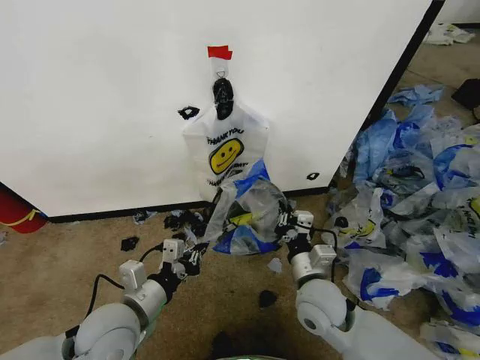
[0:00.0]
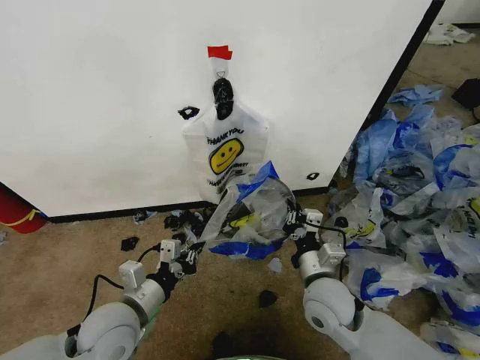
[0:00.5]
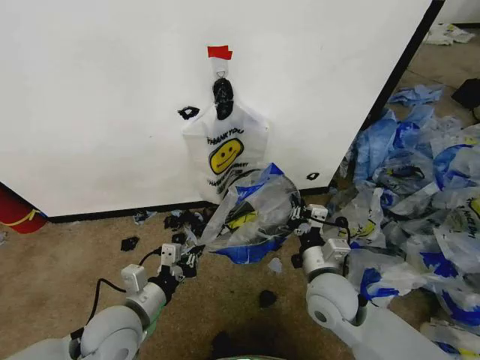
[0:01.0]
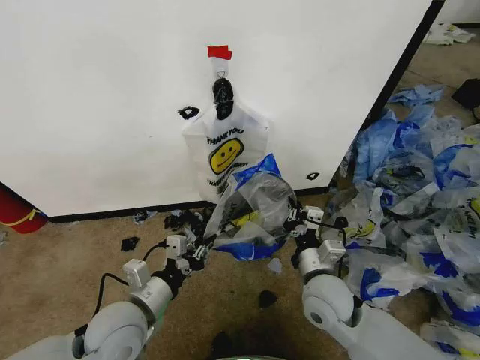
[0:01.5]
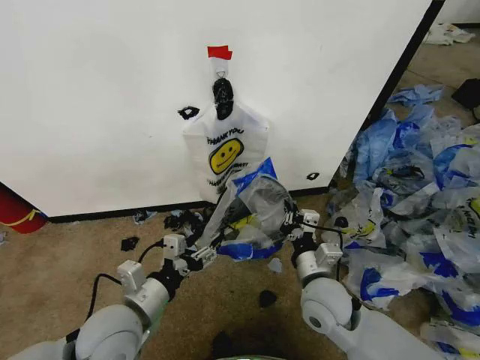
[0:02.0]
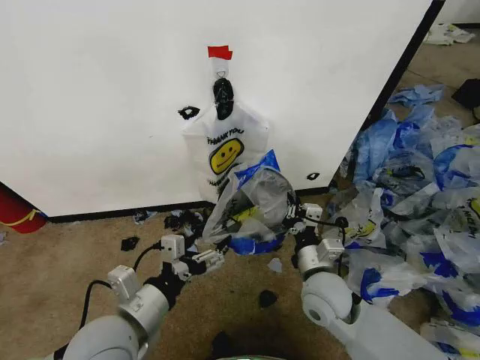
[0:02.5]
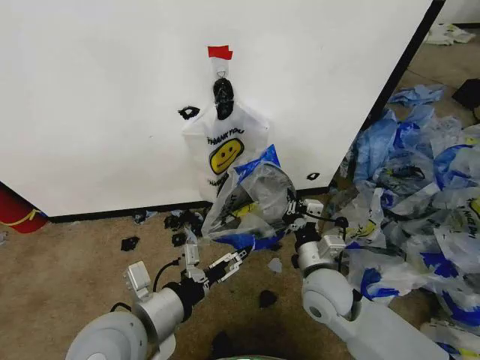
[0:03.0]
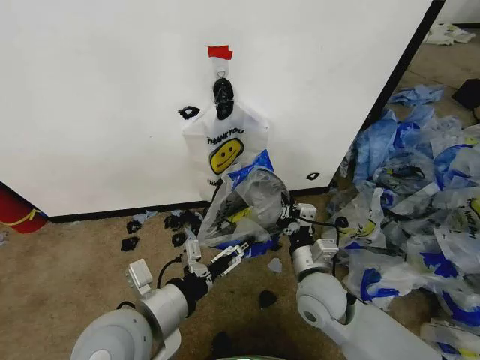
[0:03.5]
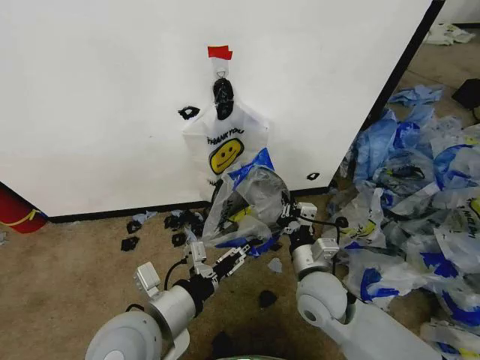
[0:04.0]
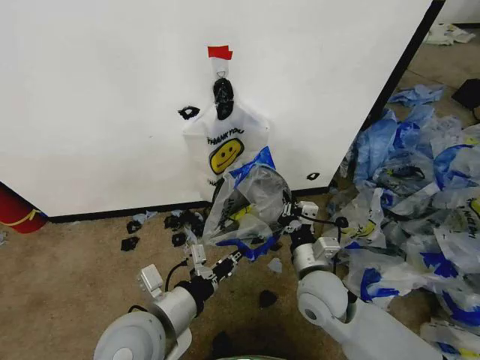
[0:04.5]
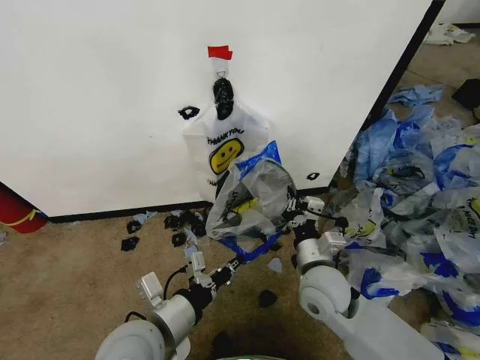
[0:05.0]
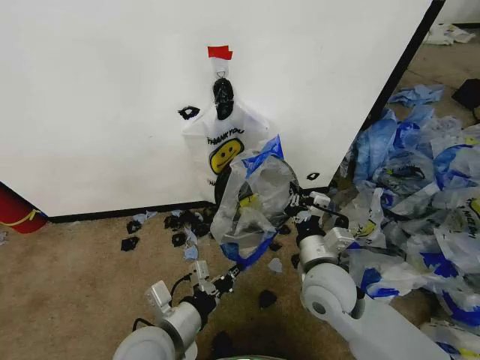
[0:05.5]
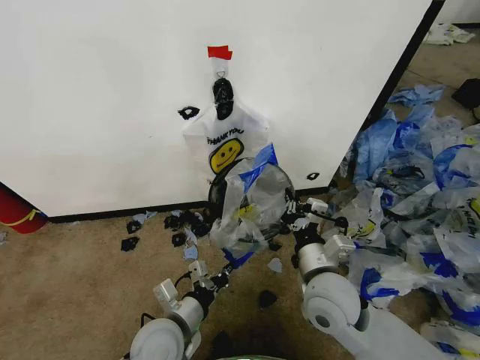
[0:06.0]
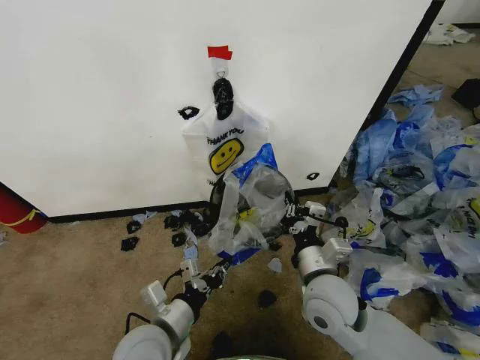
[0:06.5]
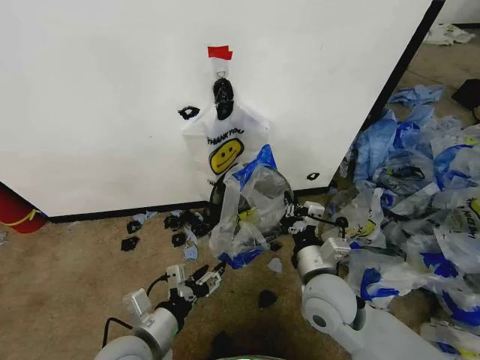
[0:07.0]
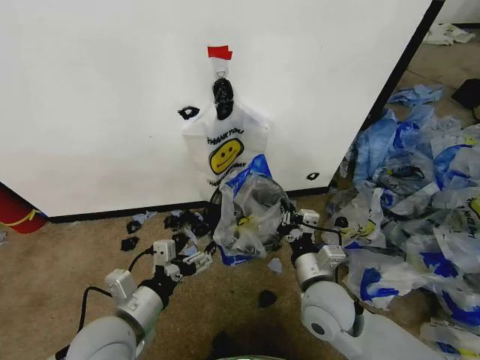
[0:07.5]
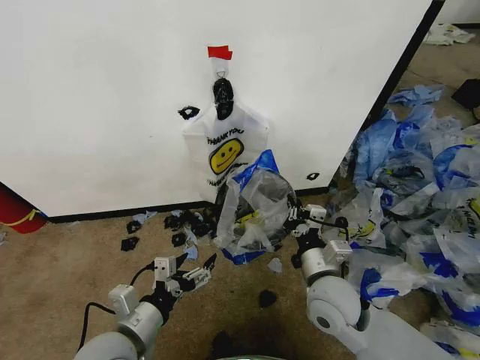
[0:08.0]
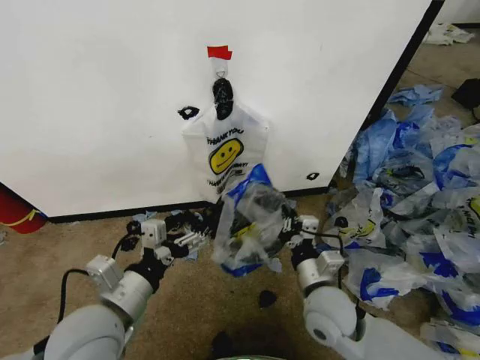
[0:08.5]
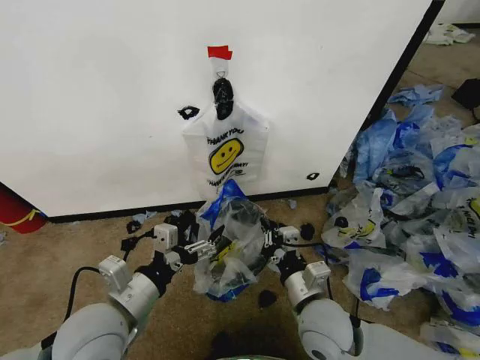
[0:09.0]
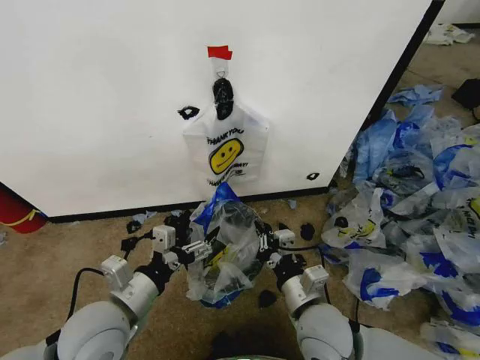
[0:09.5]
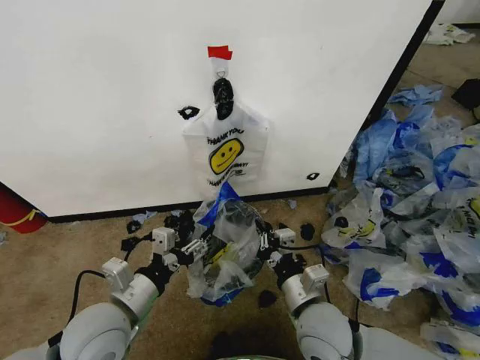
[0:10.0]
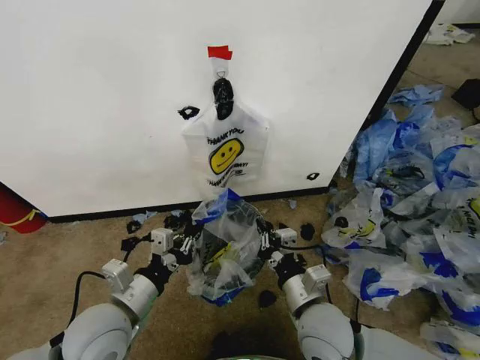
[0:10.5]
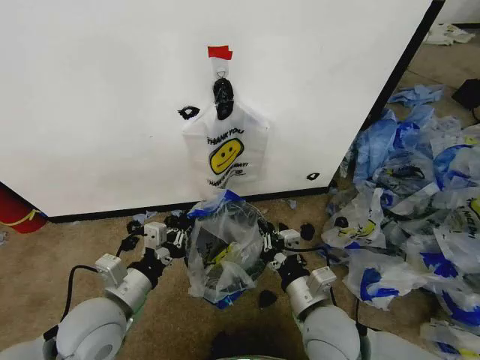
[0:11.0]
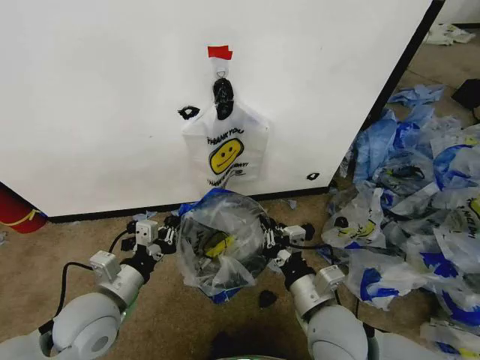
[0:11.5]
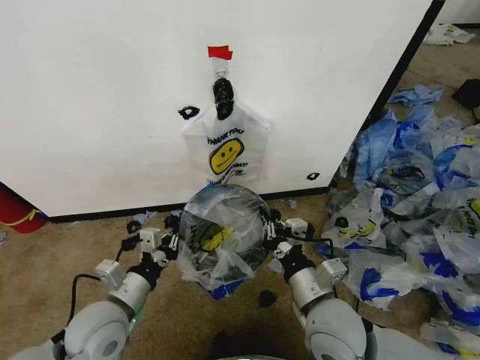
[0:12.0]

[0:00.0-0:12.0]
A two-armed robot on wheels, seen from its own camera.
Task of the whole recording: Pick up the garbage bag from the wall and place it over the trash bin.
0:00.0 to 0:02.0: The left gripper opens up.
0:02.0 to 0:04.0: The left gripper shifts some 5 cm to the right and upward.
0:04.0 to 0:06.0: The left gripper moves downward, some 10 cm, and closes its fingers.
0:06.0 to 0:08.0: The left gripper shifts approximately 5 cm to the left, and opens up.
0:08.0 to 0:10.0: The right gripper shifts by roughly 5 cm. The left gripper shifts by about 5 cm.
0:10.0 to 0:12.0: The left gripper closes up.

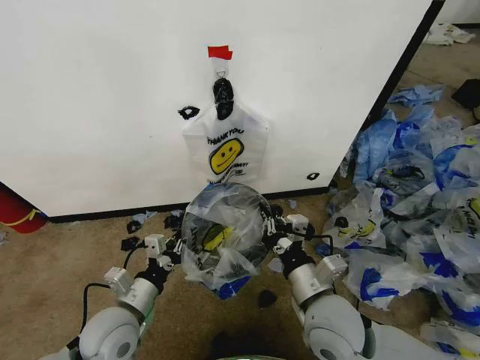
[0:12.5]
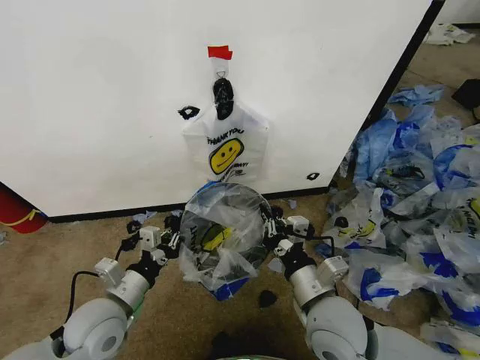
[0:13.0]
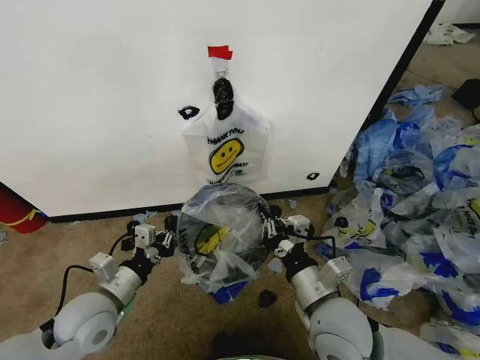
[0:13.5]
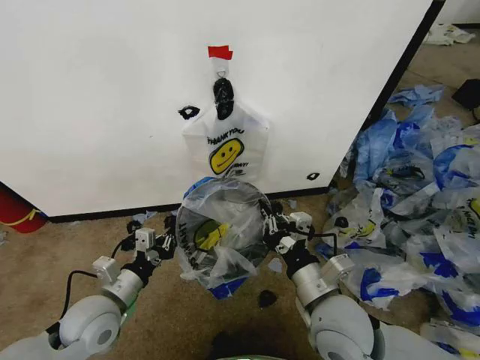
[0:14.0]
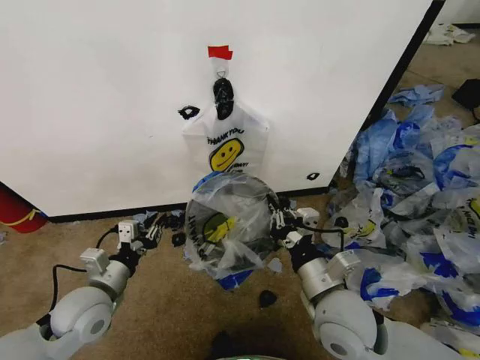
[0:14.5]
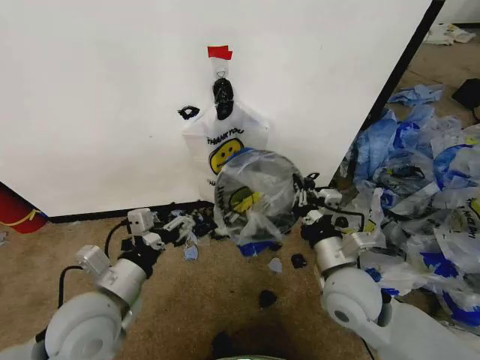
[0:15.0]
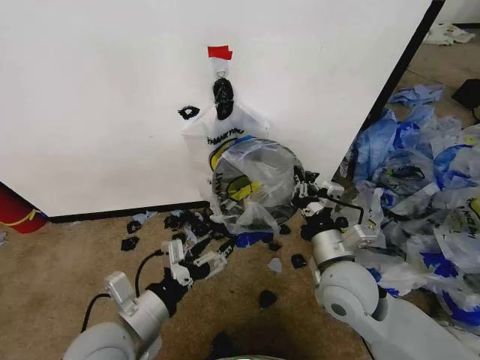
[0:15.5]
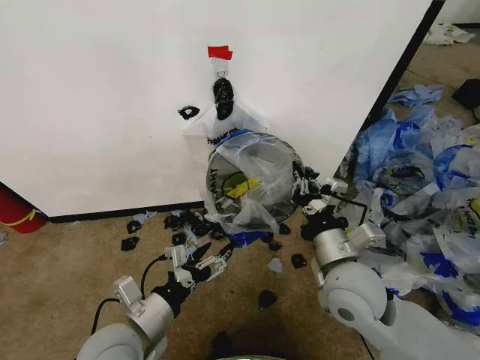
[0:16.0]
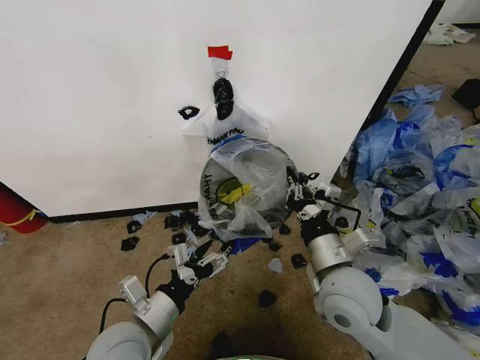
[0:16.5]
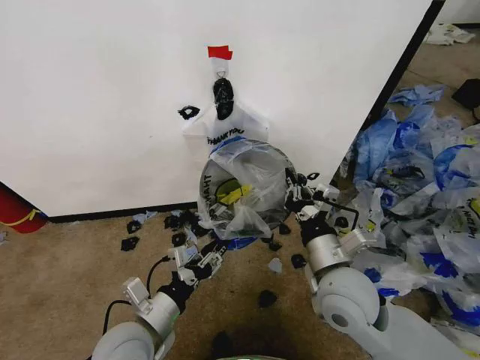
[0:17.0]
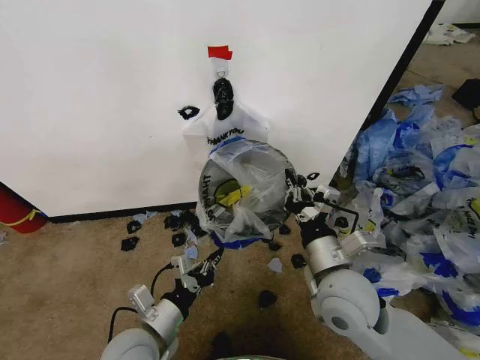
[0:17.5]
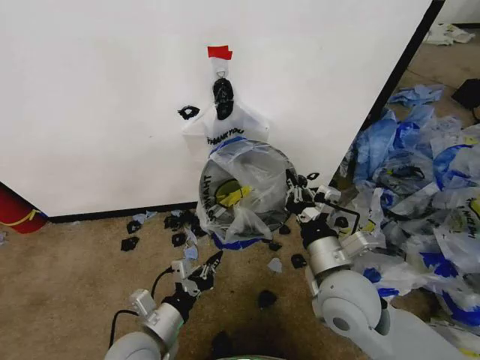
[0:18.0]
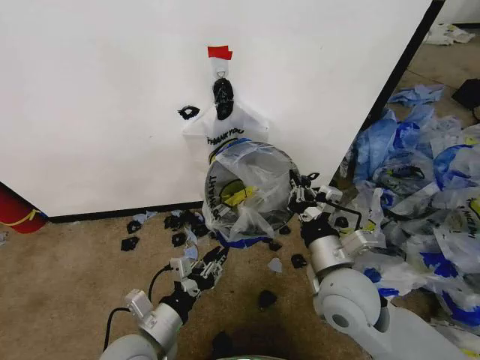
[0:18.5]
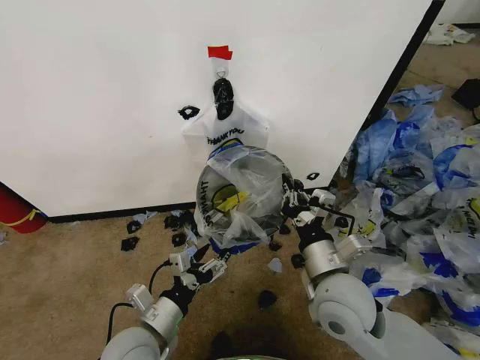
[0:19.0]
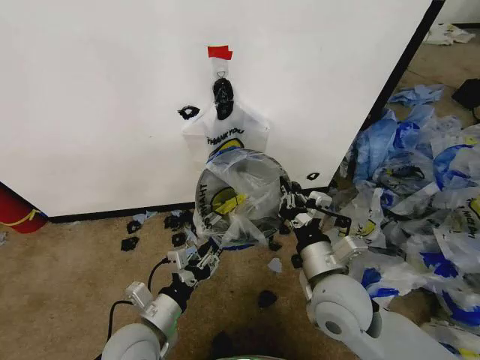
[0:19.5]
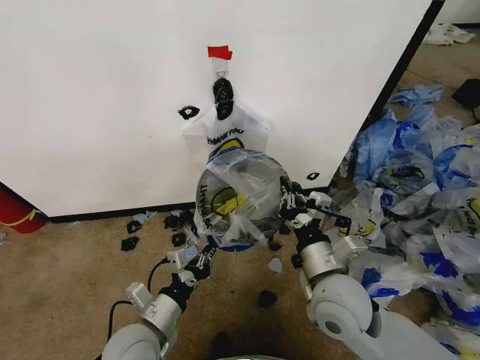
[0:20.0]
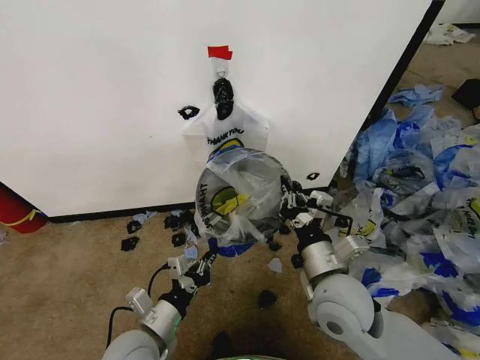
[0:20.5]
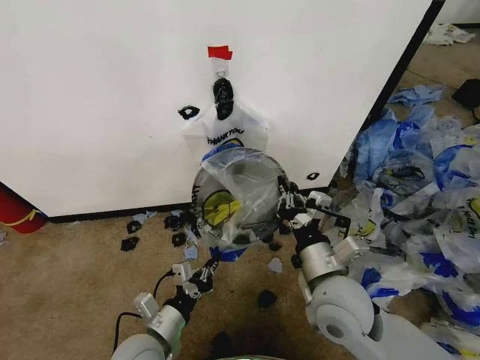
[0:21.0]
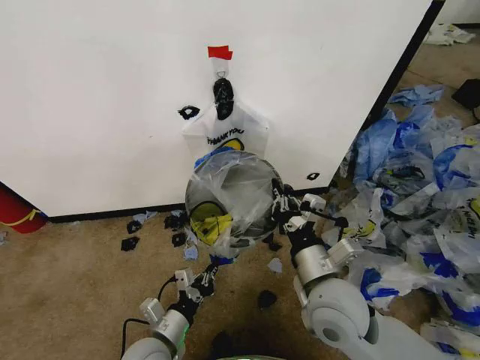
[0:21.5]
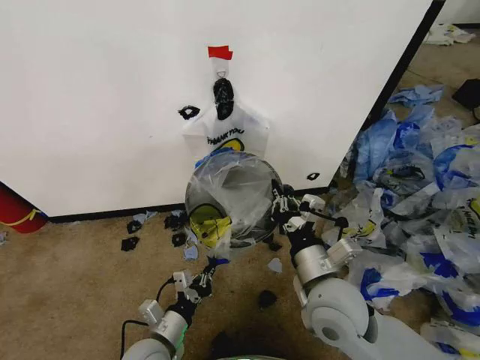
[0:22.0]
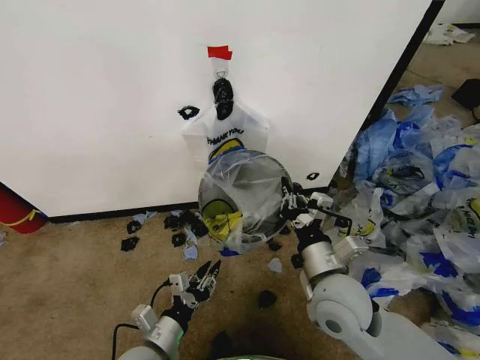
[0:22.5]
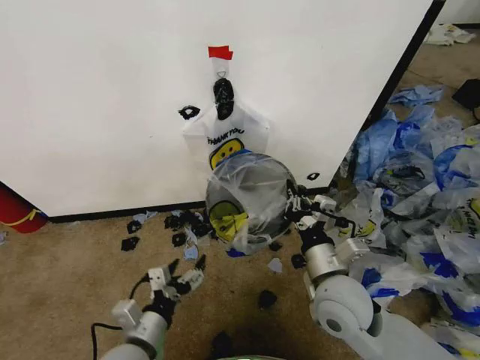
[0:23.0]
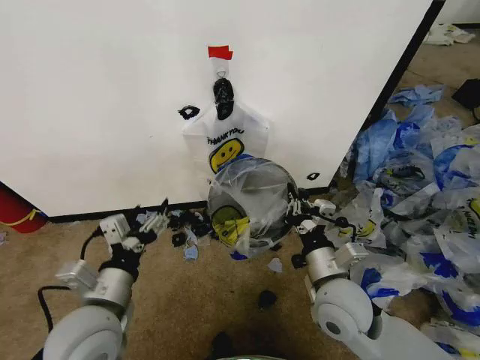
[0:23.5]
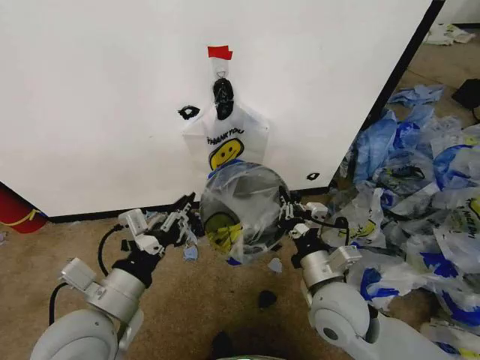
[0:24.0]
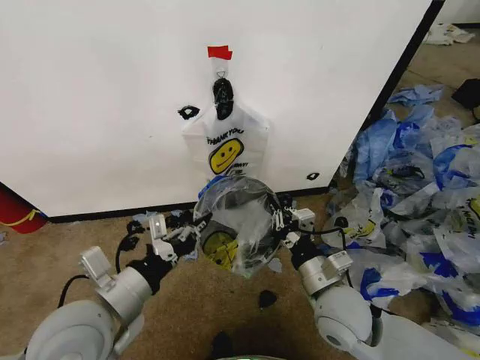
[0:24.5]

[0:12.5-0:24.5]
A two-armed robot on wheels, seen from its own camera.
Task of the whole recording: Pick up the garbage bag from the wall and place it over the trash bin.
0:12.5 to 0:14.5: The left gripper is displaced to the left by roughly 5 cm.
0:14.5 to 0:16.5: The left gripper moves to the right and backward, about 10 cm, and opens.
0:16.5 to 0:18.5: The left gripper closes up.
0:18.5 to 0:20.5: The left gripper closes its fingers.
0:20.5 to 0:22.5: The left gripper opens its fingers.
0:22.5 to 0:24.5: The left gripper moves upward, some 20 cm, and closes.

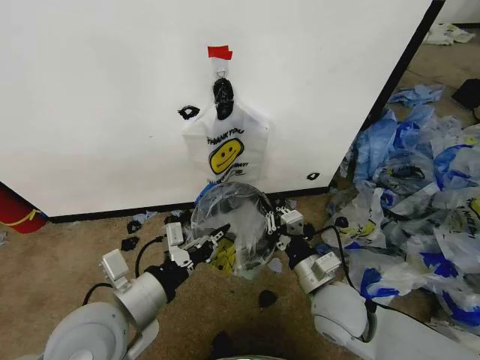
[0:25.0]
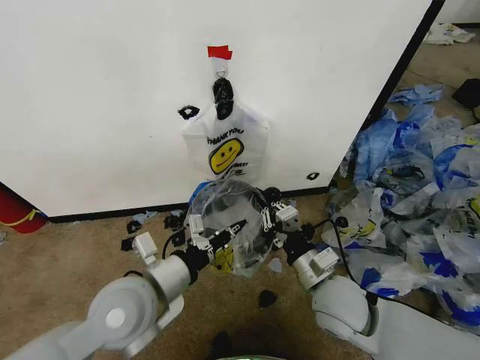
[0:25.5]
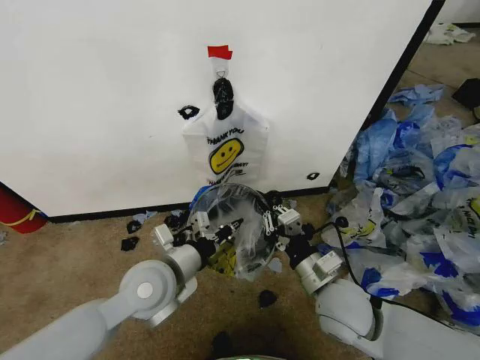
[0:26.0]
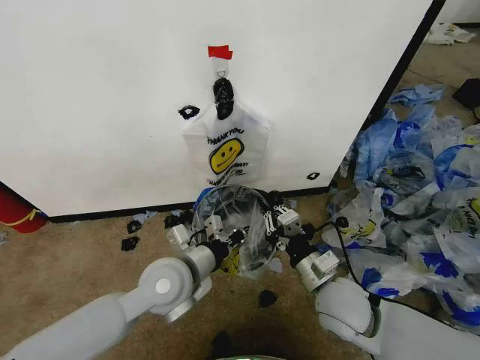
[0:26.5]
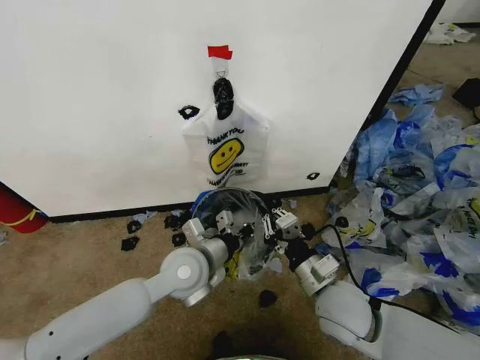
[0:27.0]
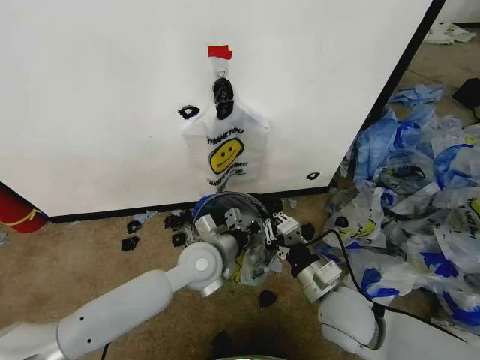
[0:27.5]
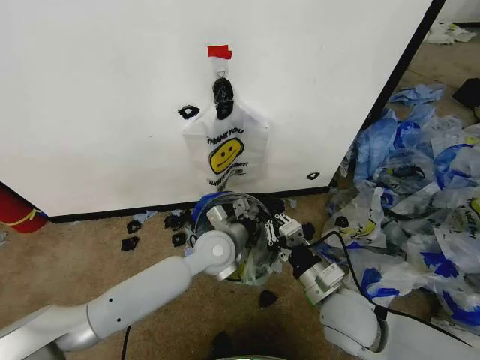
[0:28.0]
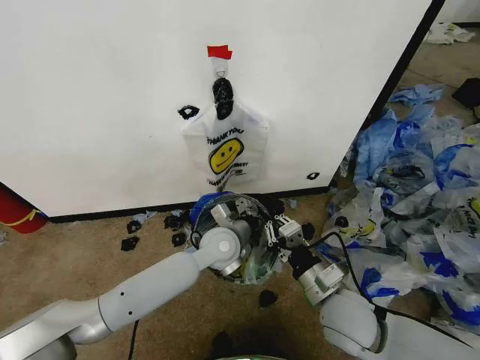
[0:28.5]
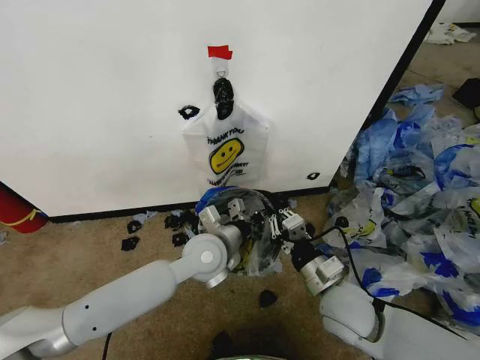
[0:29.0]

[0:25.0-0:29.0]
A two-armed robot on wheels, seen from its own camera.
Task of the whole recording: Pick up the garbage bag from the wall and place it over the trash bin.
0:25.0 to 0:27.0: The left gripper goes approximately 15 cm forward, to the right and downward.
